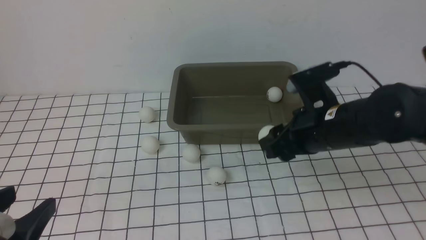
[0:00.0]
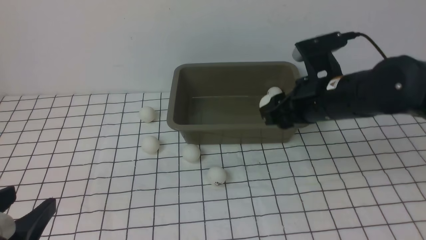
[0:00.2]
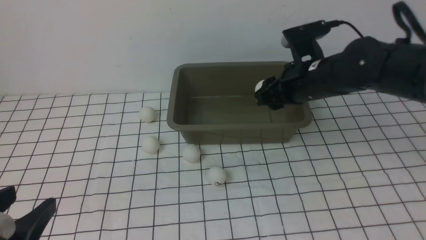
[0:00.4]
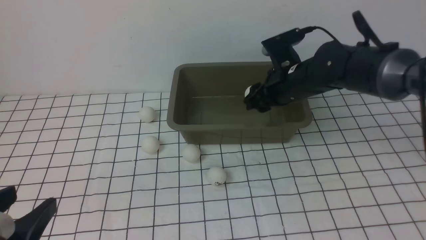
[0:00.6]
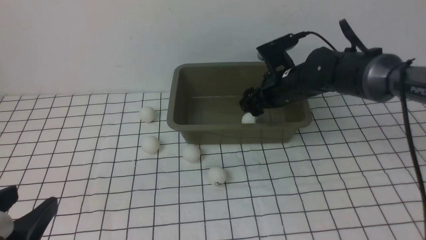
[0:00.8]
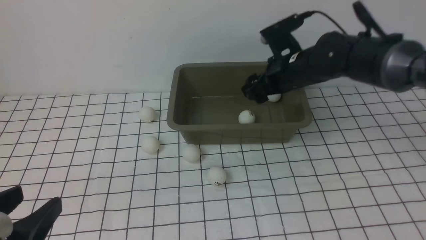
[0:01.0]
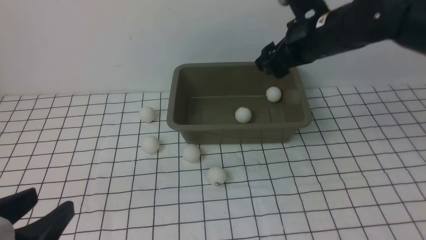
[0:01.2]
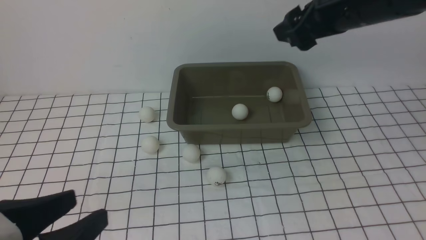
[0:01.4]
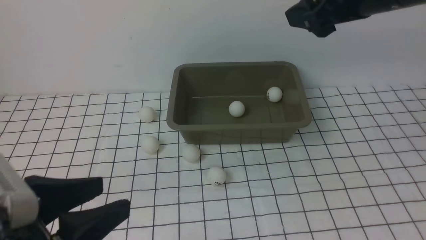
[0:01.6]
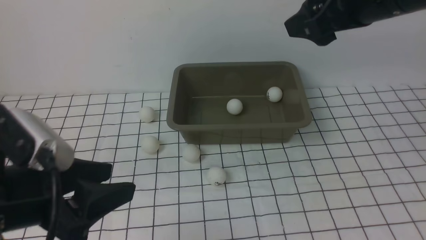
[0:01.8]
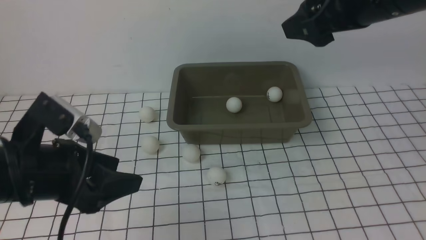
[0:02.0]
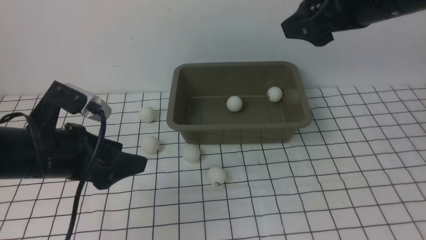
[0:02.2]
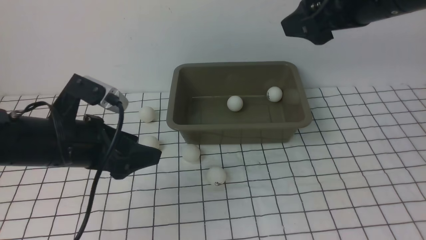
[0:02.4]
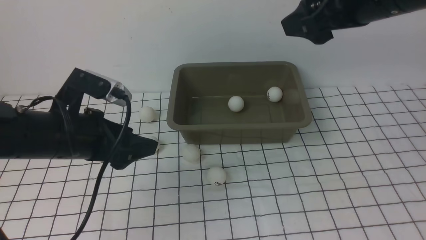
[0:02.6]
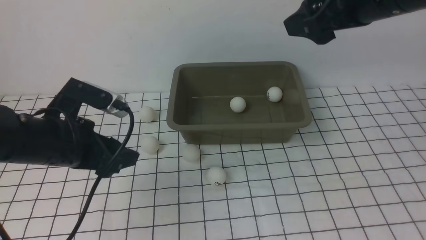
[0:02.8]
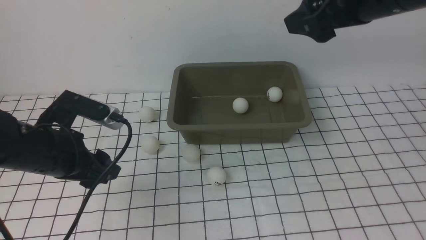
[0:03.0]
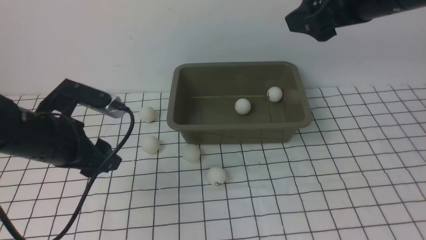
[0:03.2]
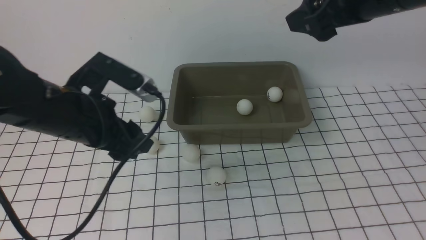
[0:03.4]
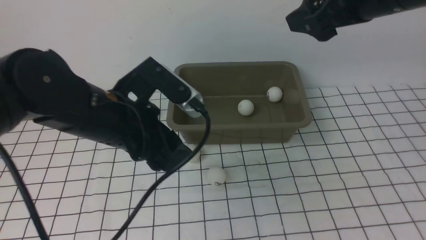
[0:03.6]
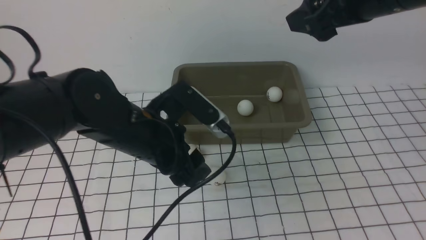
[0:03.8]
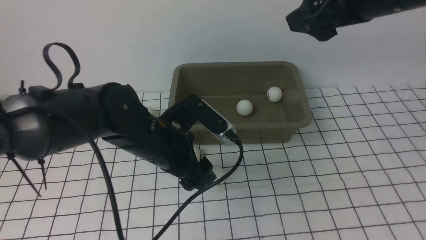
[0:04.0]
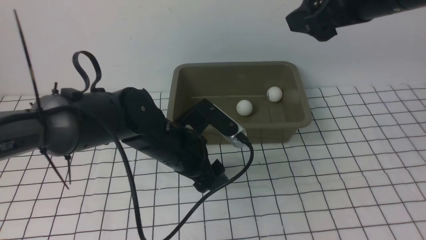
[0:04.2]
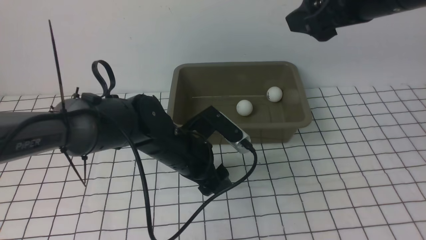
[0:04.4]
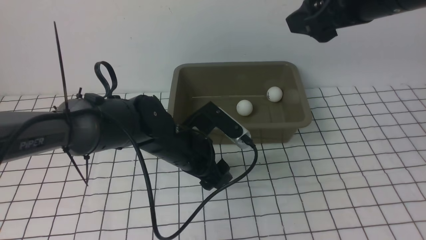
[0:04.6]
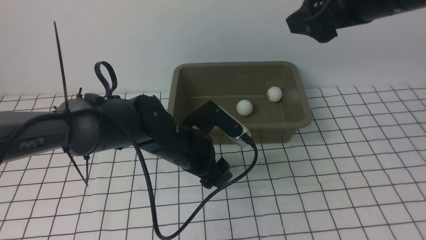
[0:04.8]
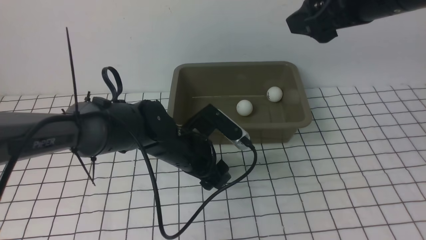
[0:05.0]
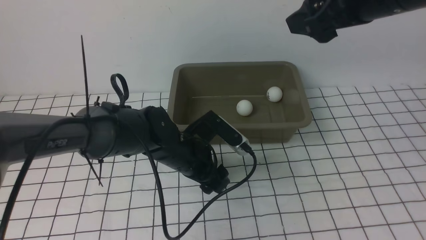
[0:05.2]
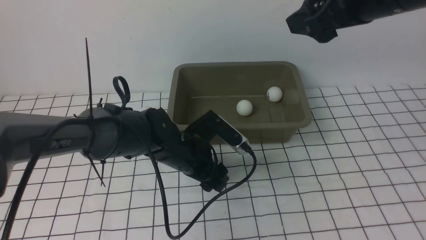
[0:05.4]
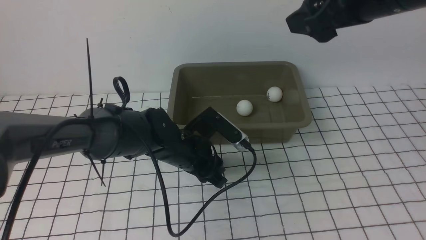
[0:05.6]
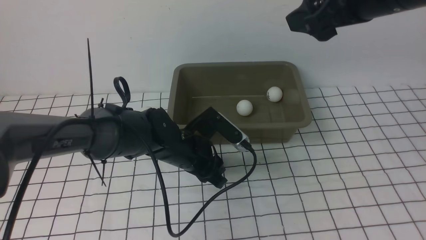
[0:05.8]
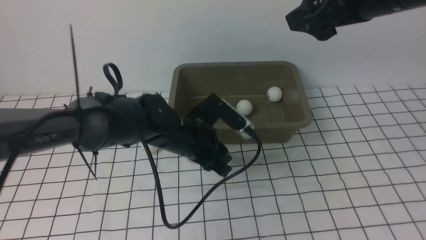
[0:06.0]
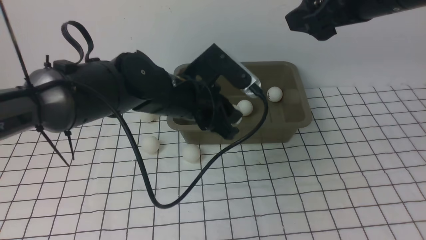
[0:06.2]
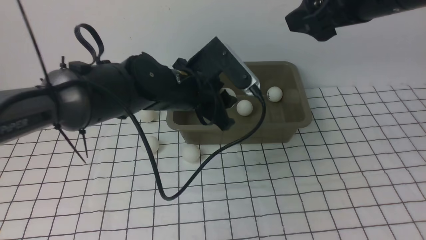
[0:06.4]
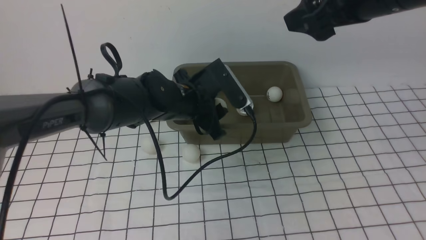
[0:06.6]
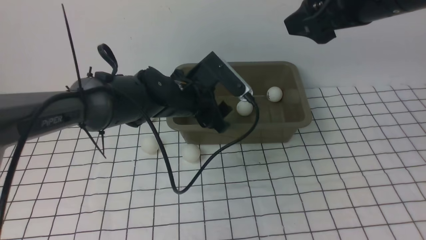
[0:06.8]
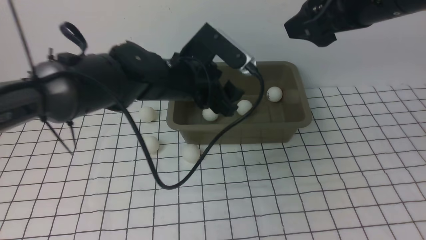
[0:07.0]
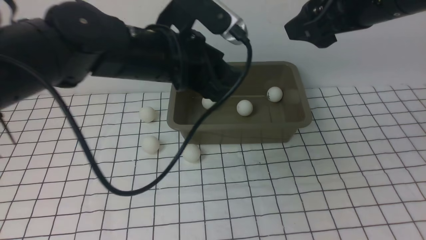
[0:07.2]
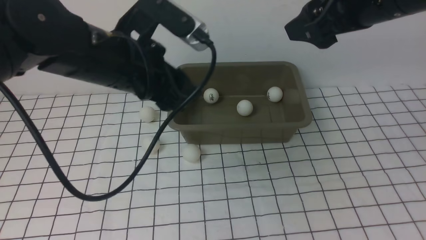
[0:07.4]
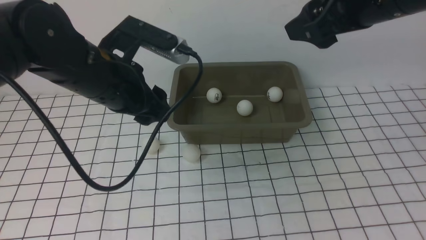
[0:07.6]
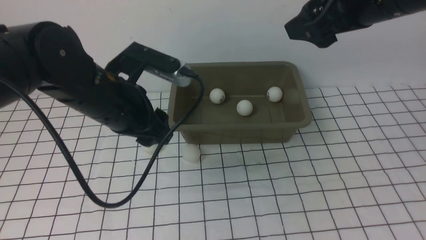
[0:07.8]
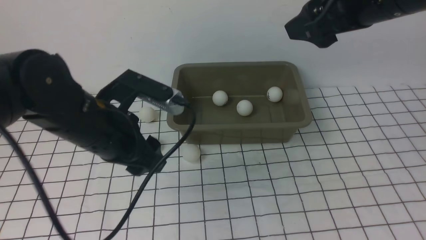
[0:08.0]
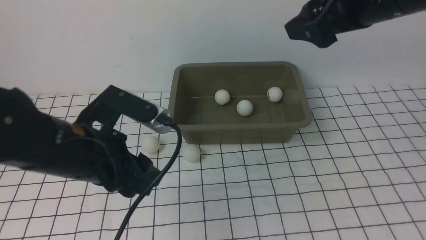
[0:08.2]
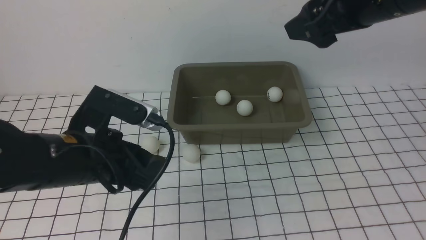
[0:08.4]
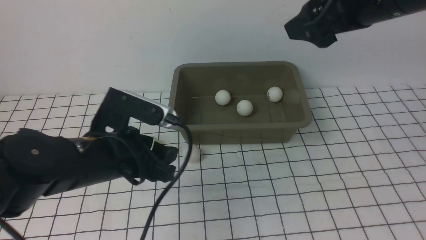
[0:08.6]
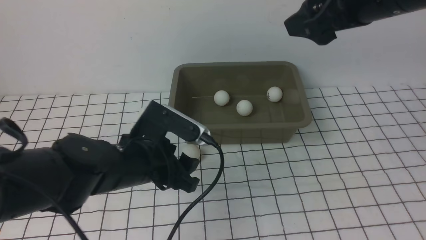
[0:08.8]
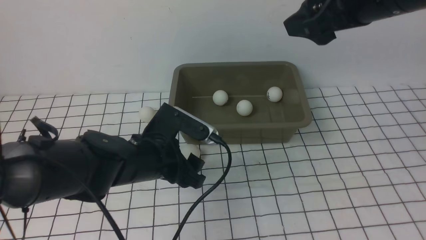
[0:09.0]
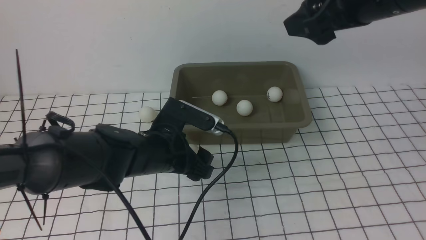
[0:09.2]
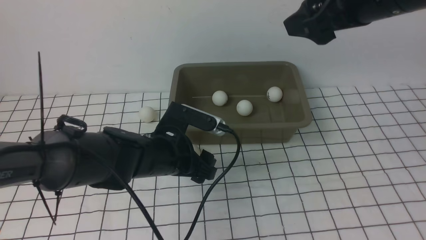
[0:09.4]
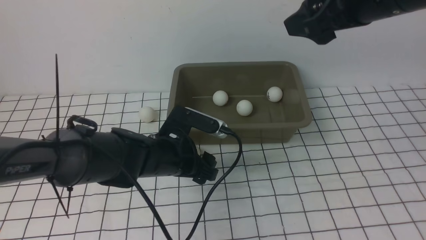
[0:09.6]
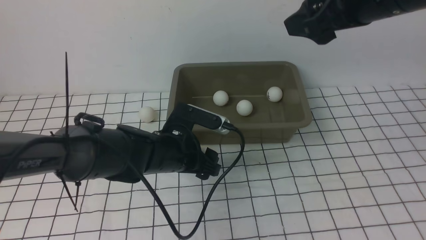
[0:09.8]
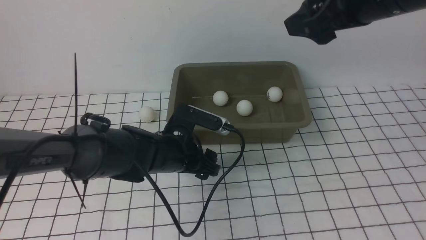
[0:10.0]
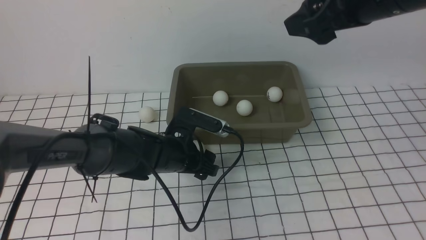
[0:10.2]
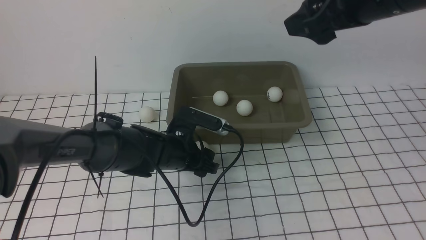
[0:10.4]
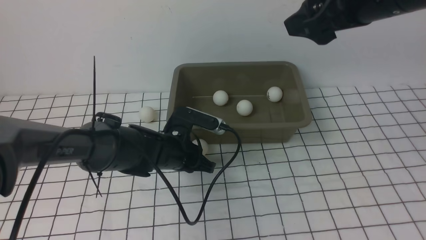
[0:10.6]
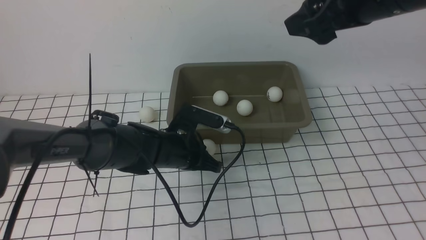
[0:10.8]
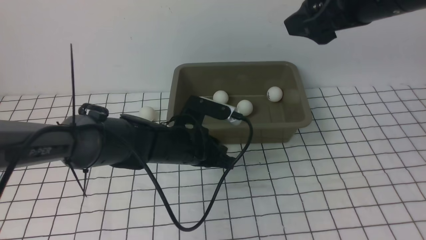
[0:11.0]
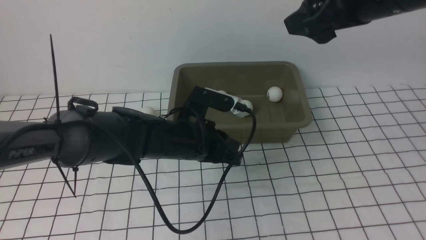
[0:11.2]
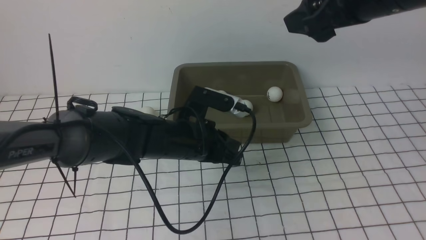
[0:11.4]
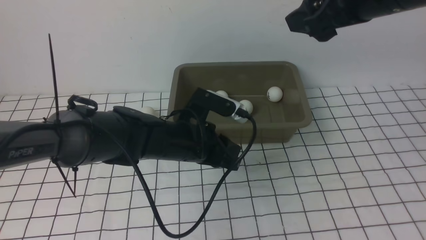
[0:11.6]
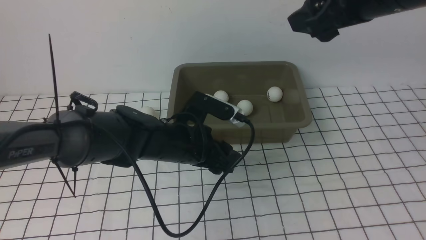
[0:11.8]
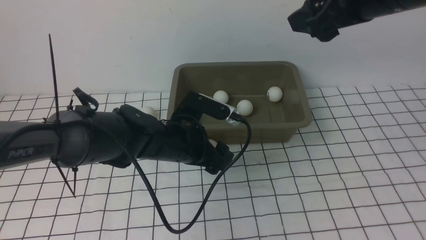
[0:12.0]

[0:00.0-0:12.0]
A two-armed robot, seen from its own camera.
Step, 0:00.0 to 0:00.6: use the right arm to put the table tennis ball into the box.
Step, 0:00.8 to 0:06.2: use the left arm to clamp the table tennis ball closest to it.
Step, 0:06.4 to 0:06.8: use the left arm to put the table tennis ball into the box.
0:00.0 to 0:01.6: The left gripper shifts by roughly 5 cm, while the right gripper goes roughly 20 cm upward, and opens.
0:01.6 to 0:03.0: The left gripper moves forward, some 15 cm.
0:03.0 to 0:04.4: The left gripper moves to the right and downward, approximately 15 cm.
0:04.4 to 0:06.0: The left gripper is displaced upward by roughly 5 cm, and closes up.
0:06.0 to 0:07.6: The left gripper moves to the left, backward and upward, roughly 10 cm.
0:07.6 to 0:09.0: The left gripper moves downward, roughly 10 cm.
0:09.0 to 0:10.4: The left gripper travels downward and forward by roughly 10 cm.
0:10.4 to 0:12.0: The left gripper goes about 5 cm upward, and closes, then opens again.

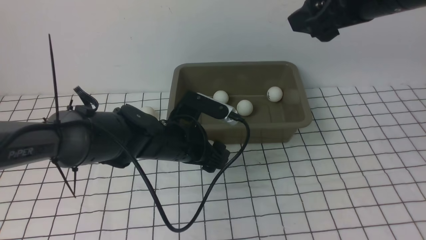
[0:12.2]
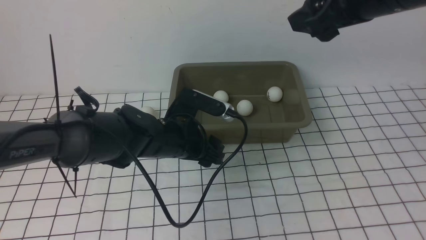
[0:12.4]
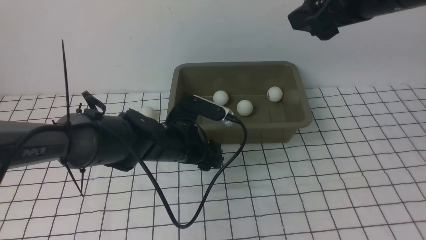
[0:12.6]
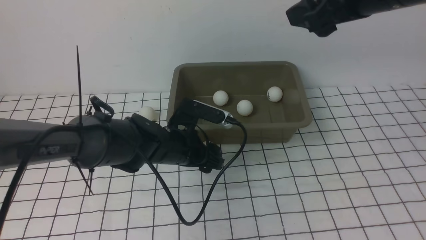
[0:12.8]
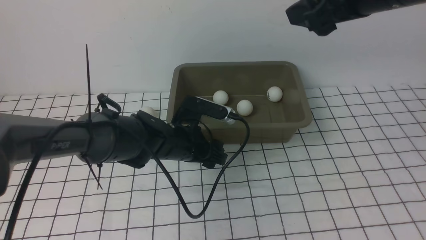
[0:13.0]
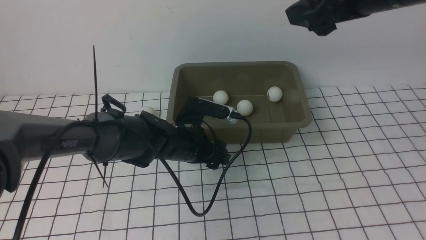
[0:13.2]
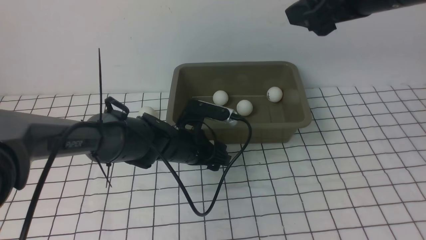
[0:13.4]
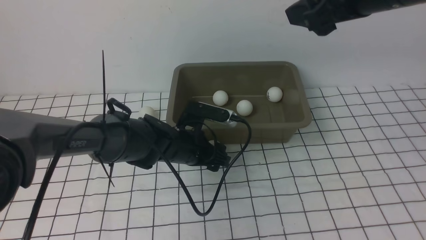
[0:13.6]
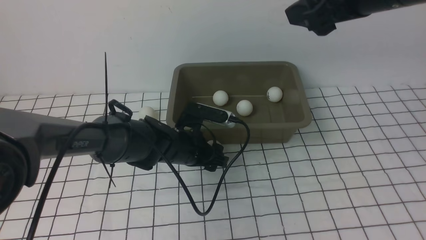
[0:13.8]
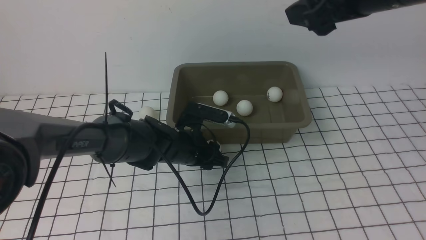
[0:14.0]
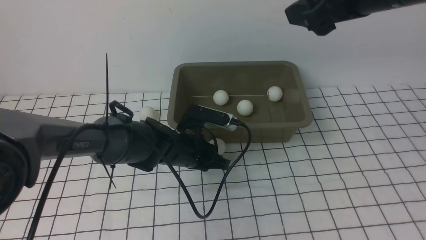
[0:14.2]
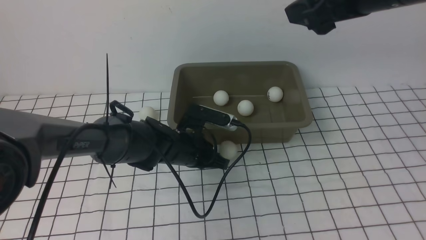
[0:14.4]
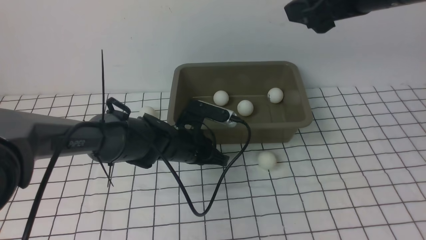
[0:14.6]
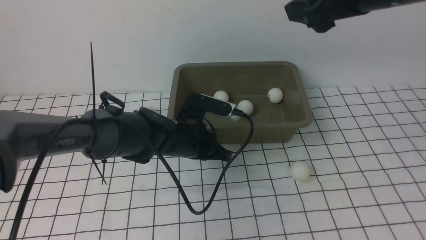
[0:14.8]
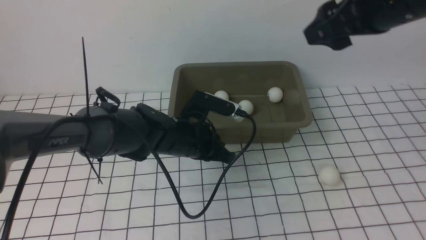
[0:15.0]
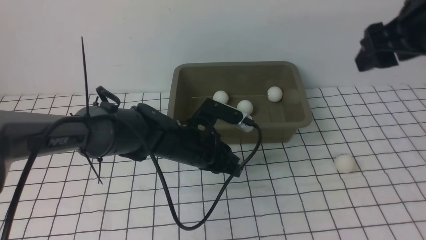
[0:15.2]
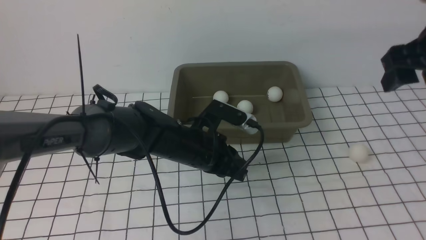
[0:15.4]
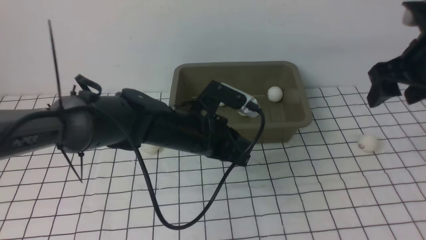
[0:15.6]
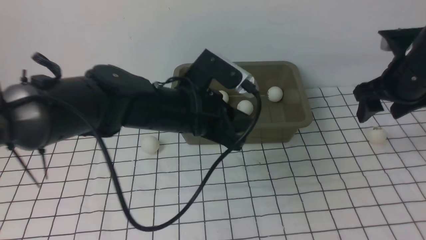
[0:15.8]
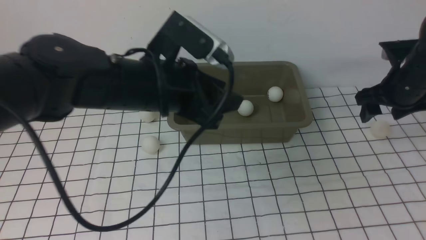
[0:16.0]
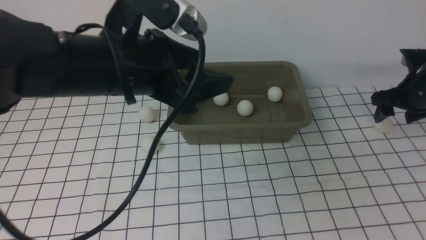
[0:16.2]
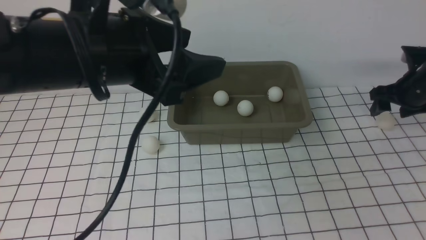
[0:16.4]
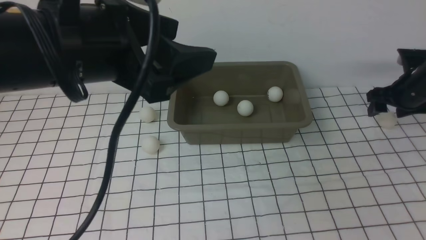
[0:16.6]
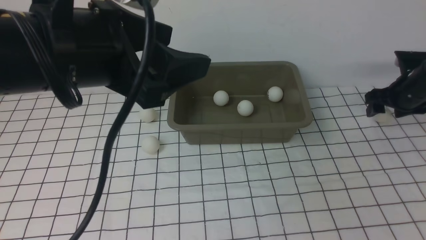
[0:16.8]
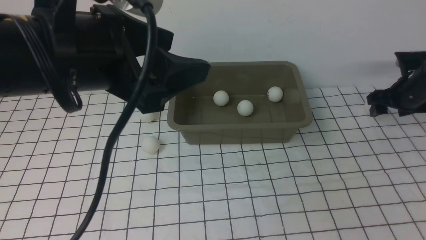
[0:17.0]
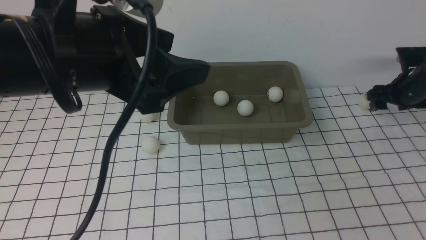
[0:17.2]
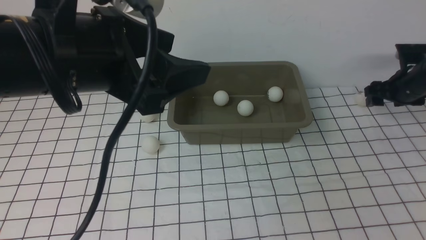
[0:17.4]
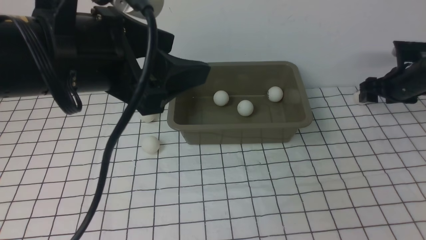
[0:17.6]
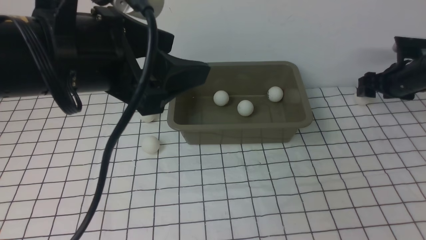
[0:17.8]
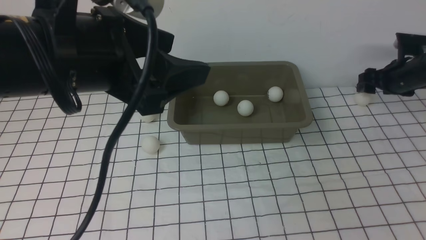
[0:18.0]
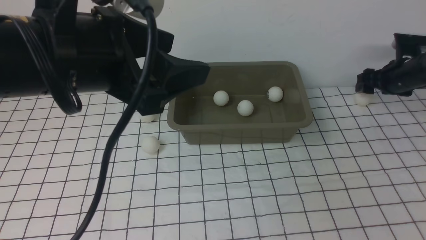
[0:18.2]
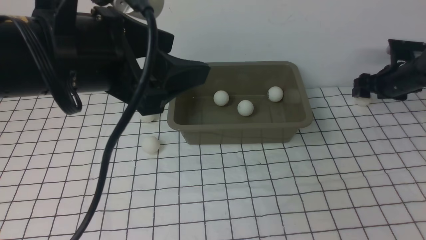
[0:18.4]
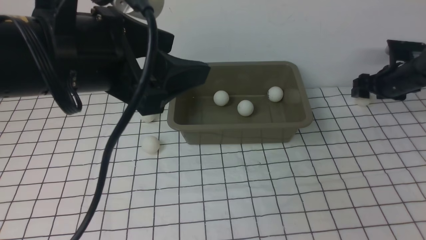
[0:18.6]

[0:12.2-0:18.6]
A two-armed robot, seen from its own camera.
0:12.2 to 0:13.8: The left gripper goes roughly 5 cm downward.
0:13.8 to 0:15.4: The right gripper heads to the right and downward, covering about 10 cm. The left gripper travels upward by about 5 cm, and closes.
0:15.4 to 0:17.0: The left gripper goes some 25 cm upward and backward, and opens up, while the right gripper shifts approximately 25 cm downward, forward and to the right.
0:17.0 to 0:18.6: The grippers move only a little.
